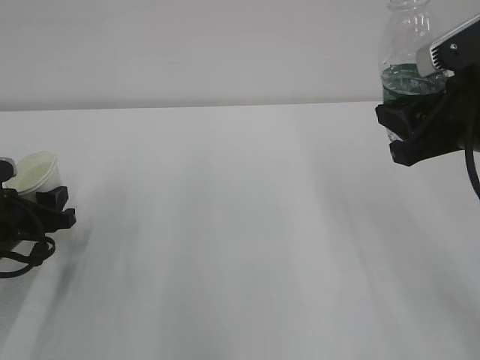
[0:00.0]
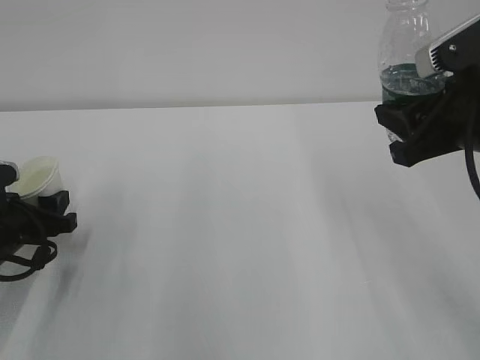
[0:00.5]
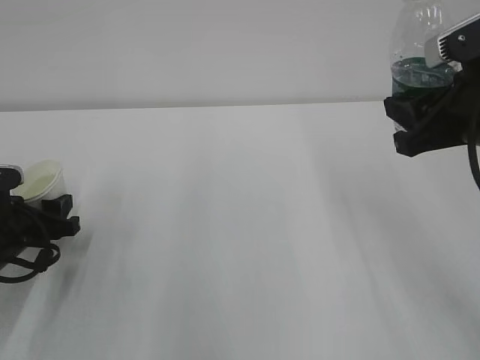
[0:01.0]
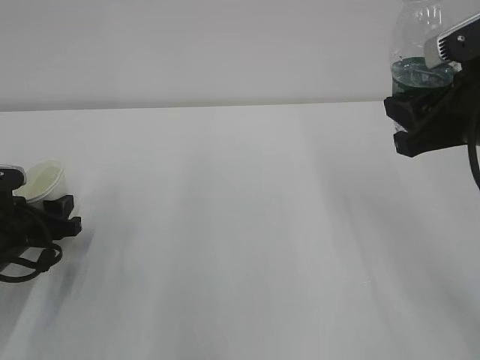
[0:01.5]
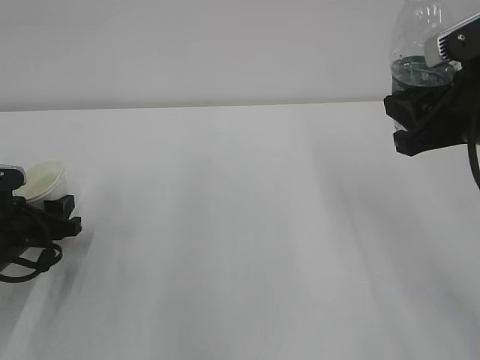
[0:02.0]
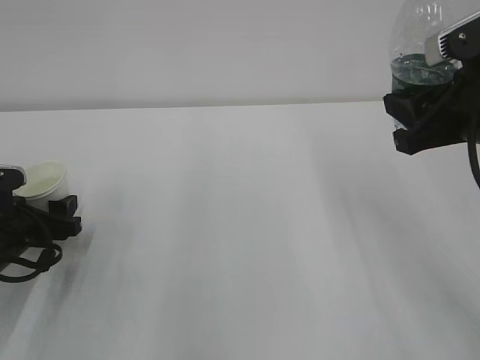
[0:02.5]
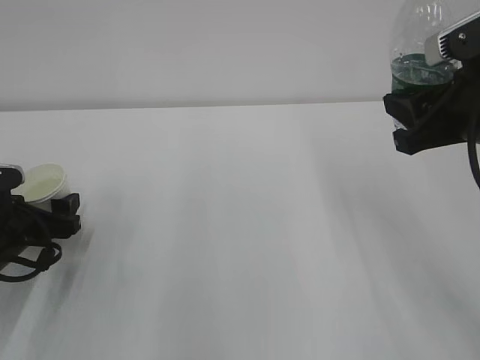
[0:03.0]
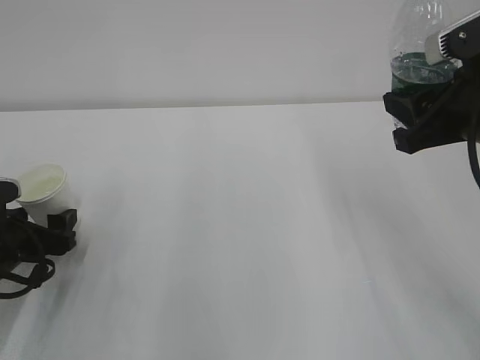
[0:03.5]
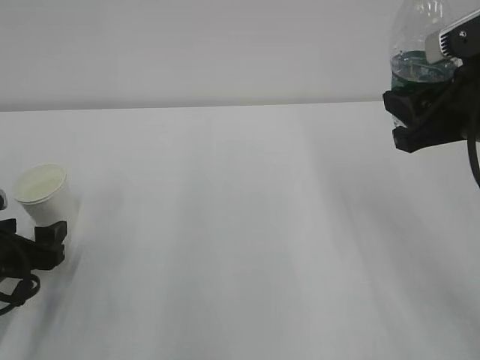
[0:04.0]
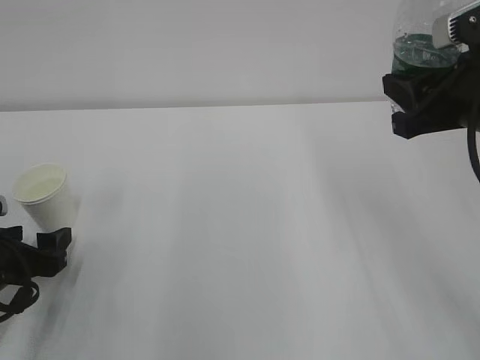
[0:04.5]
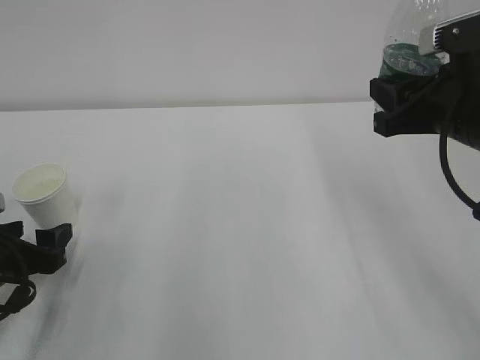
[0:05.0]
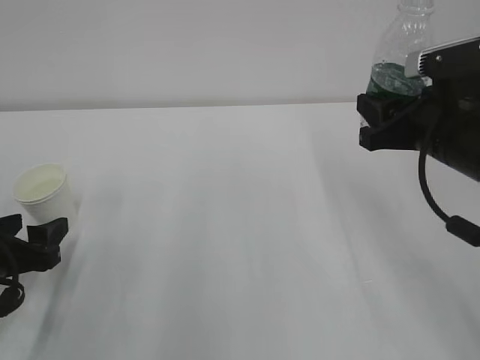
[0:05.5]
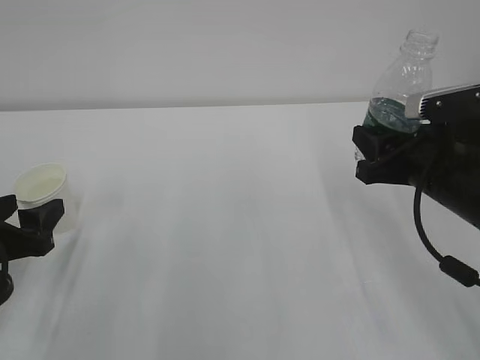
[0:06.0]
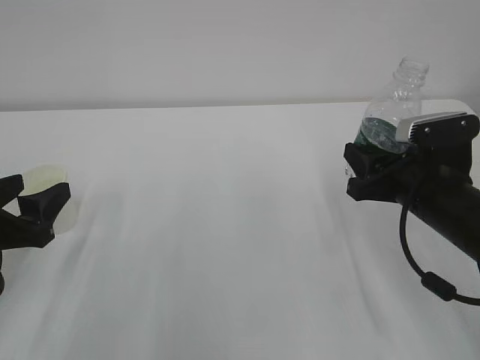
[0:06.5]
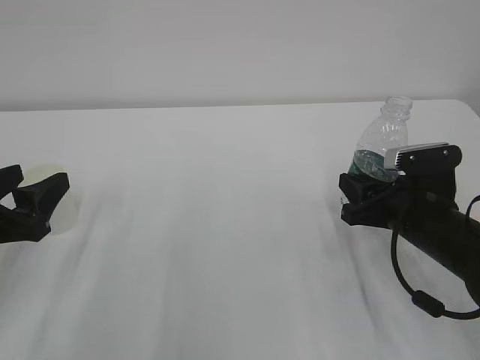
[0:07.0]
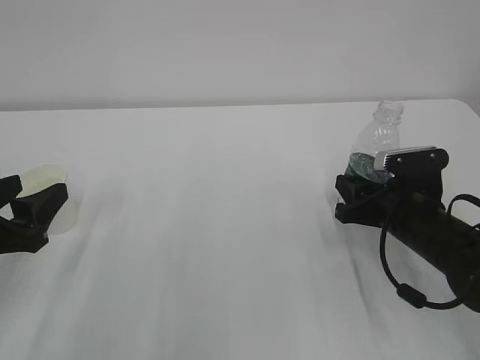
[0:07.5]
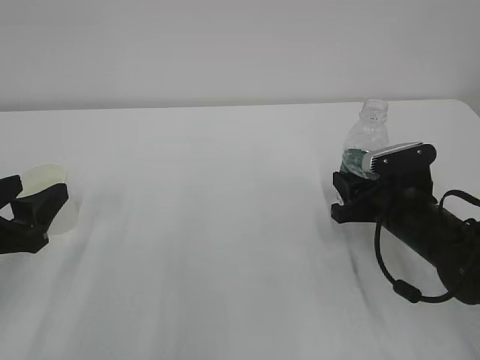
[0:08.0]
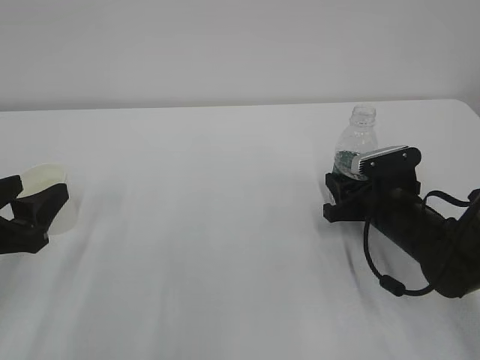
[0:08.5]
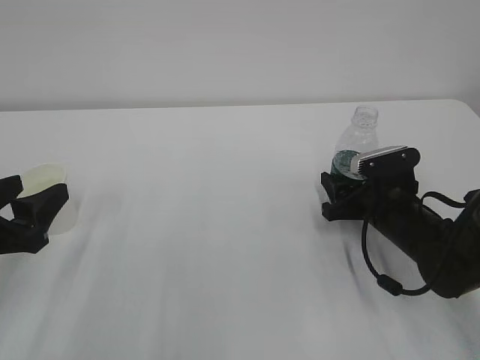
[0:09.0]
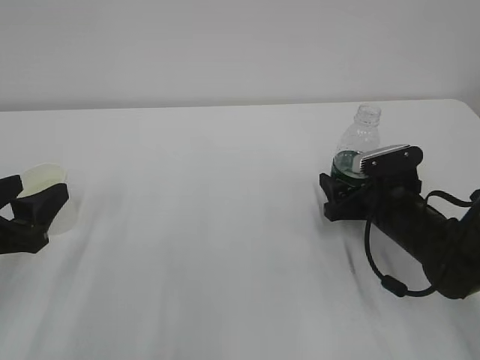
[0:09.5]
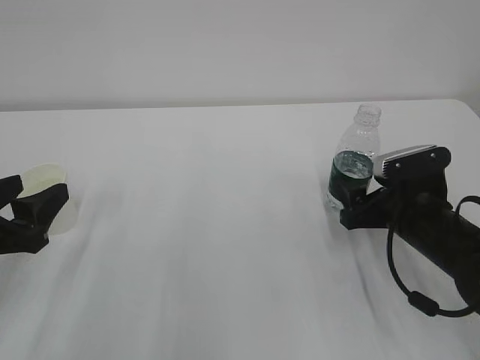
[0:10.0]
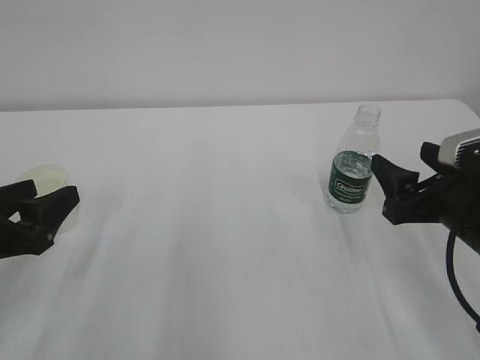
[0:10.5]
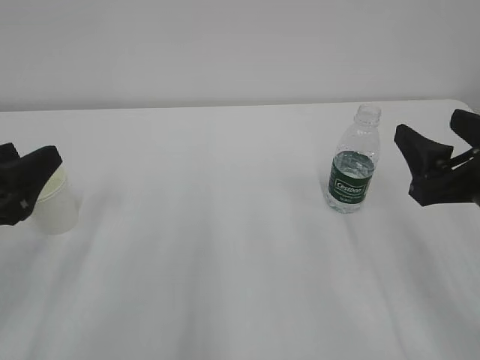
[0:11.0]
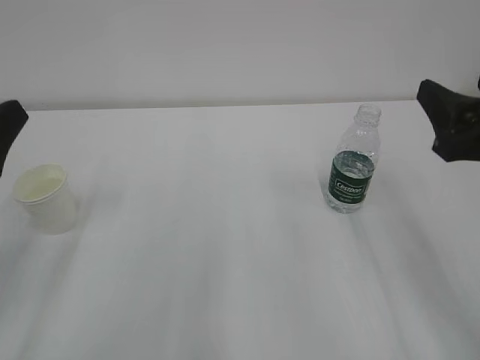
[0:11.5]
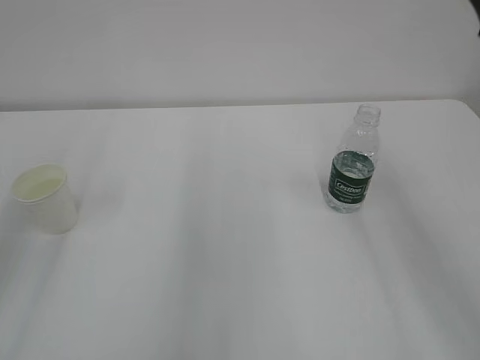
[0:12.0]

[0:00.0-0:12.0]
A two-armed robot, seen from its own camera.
0:00.0 to 0:02.0: There are only small adjustments of the grippers.
0:02.0 to 0:04.0: The left gripper opens its fingers.
0:04.0 to 0:06.0: The right gripper heads downward, covering some 10 cm.
0:06.0 to 0:08.0: The right gripper travels downward by some 10 cm.
0:08.0 to 0:10.0: The right gripper opens.
0:10.0 to 0:12.0: The left gripper is displaced upward by approximately 15 cm. Meanwhile the right gripper shifts about 25 cm upward.

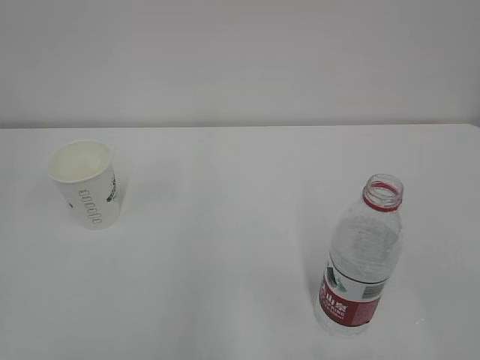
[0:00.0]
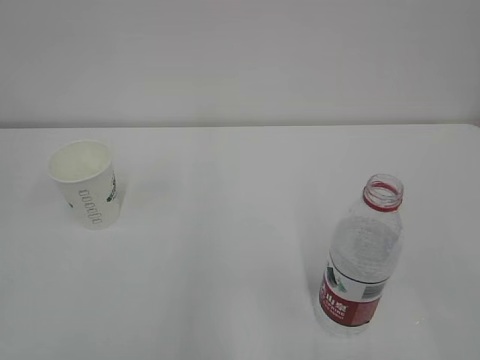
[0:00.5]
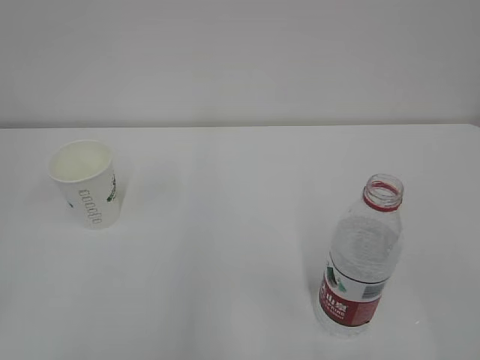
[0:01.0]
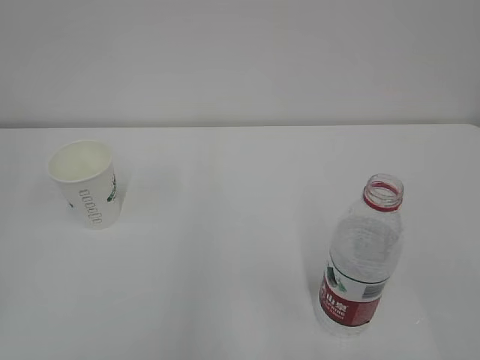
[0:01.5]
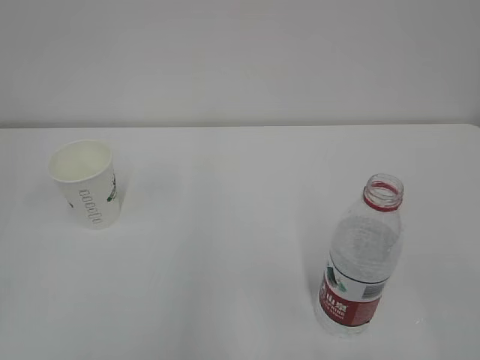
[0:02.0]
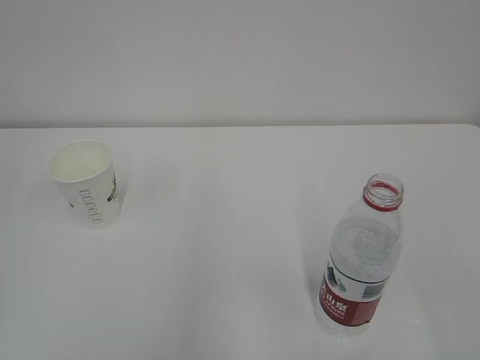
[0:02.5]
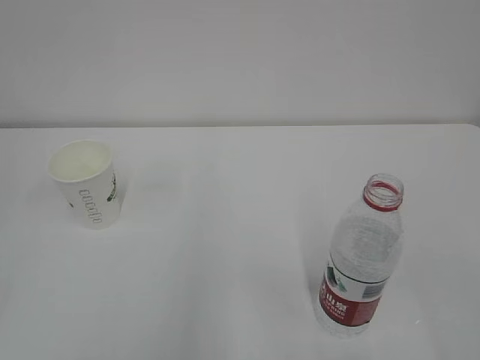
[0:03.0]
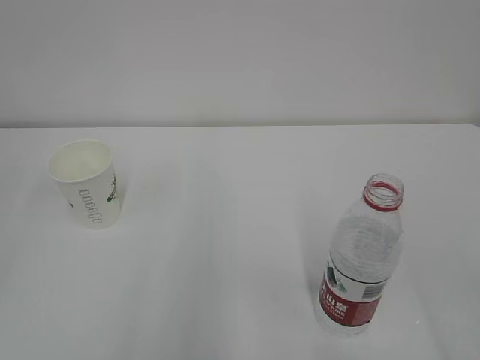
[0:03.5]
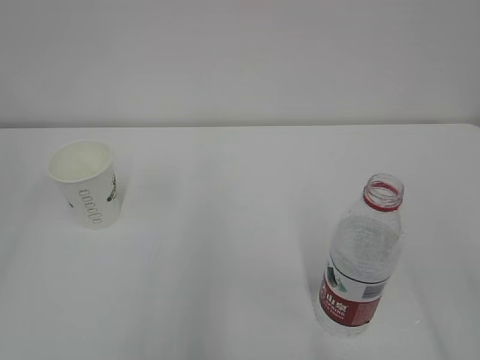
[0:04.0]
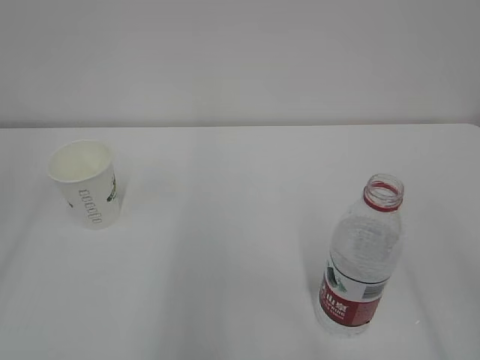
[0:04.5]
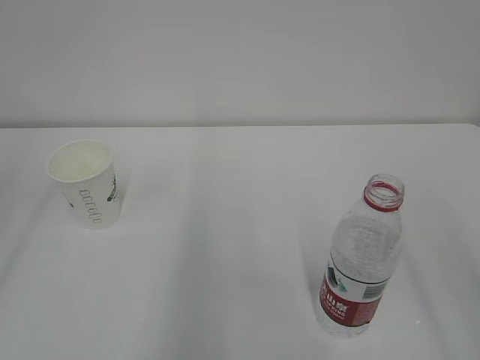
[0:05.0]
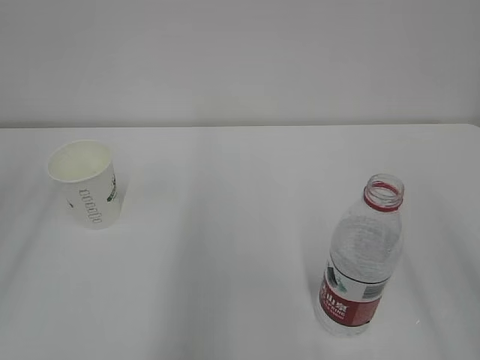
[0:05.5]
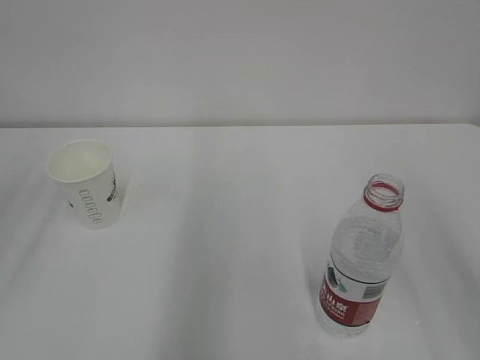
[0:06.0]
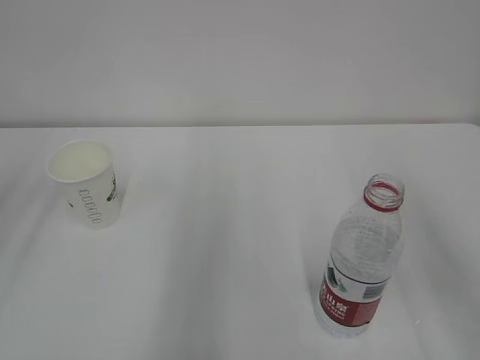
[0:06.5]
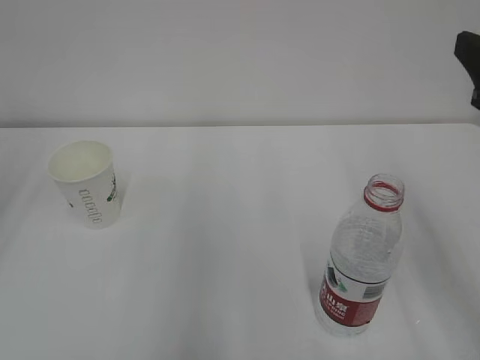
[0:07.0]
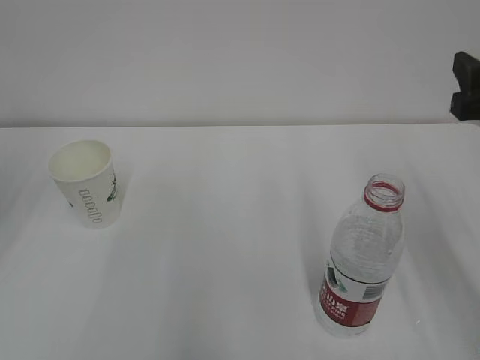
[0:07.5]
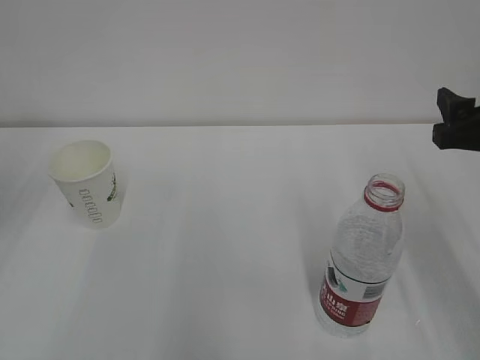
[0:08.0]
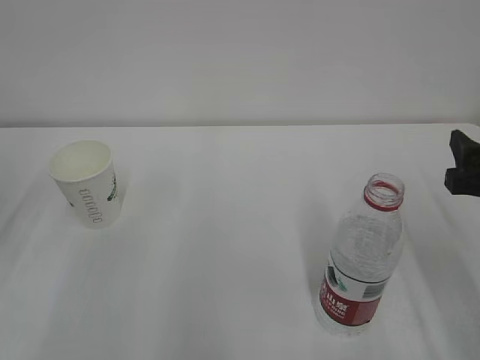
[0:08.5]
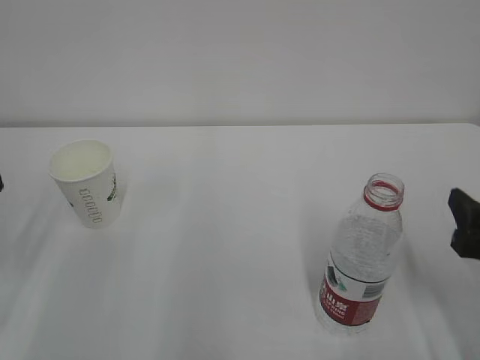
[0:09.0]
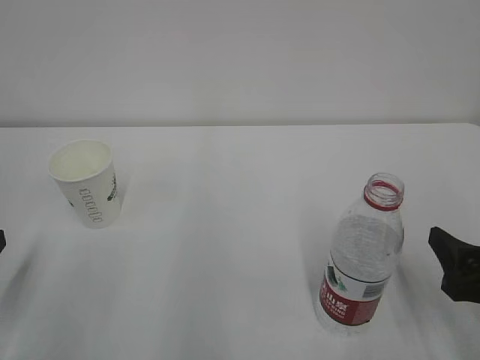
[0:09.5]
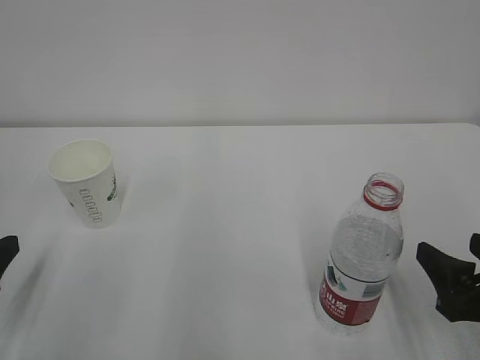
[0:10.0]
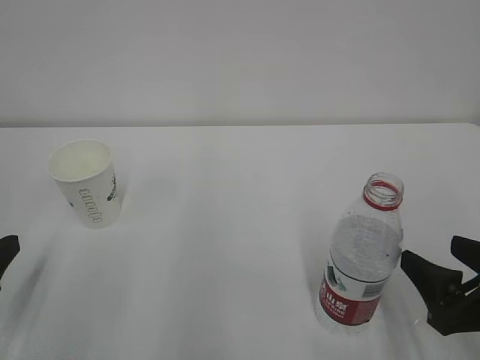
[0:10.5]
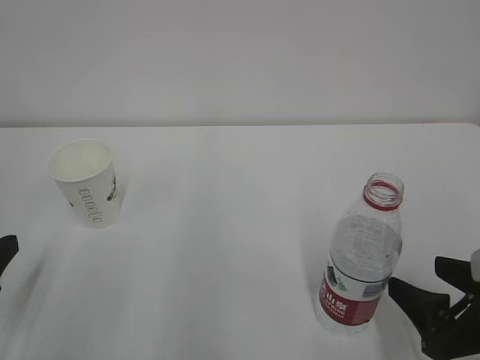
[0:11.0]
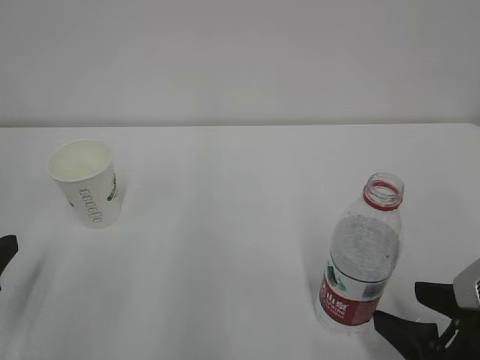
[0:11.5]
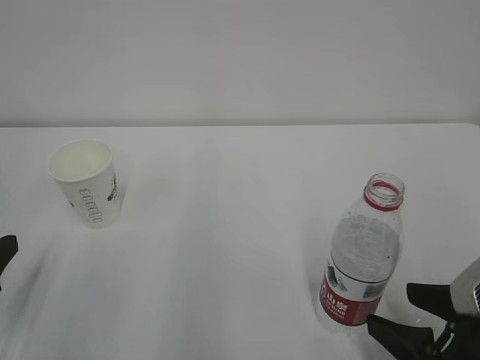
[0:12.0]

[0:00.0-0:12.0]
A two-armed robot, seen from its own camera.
0:06.0 to 0:08.0: The right gripper travels forward and downward by about 20 cm.
0:08.0 to 0:10.0: The left gripper moves downward and backward, some 15 cm; the right gripper is displaced backward and downward by roughly 15 cm.

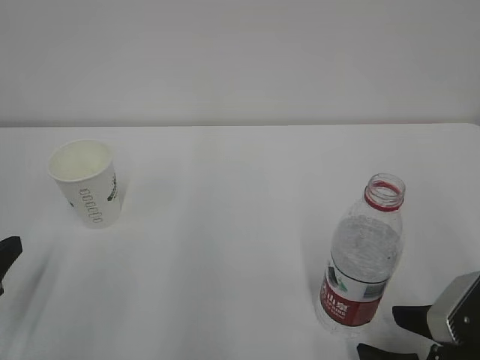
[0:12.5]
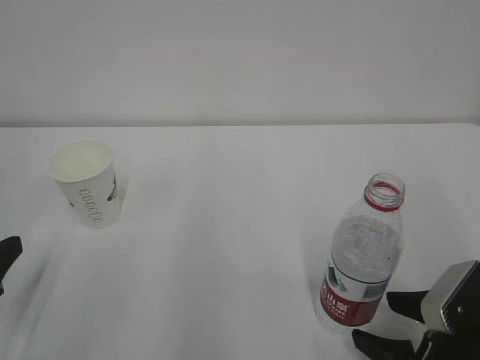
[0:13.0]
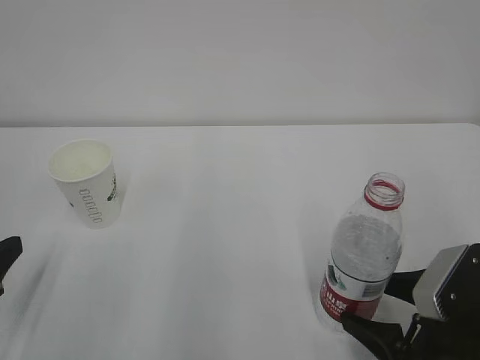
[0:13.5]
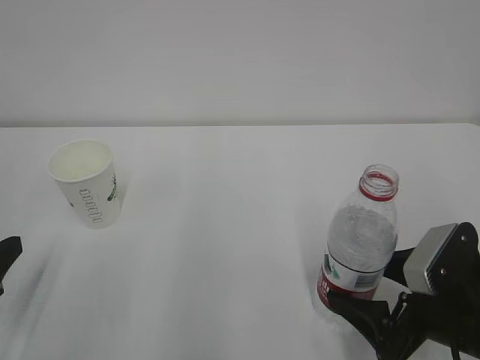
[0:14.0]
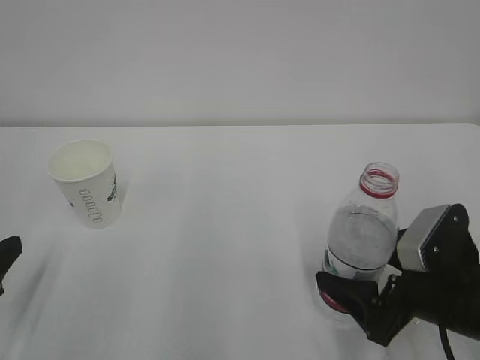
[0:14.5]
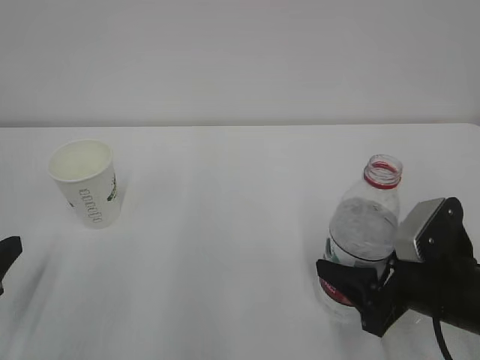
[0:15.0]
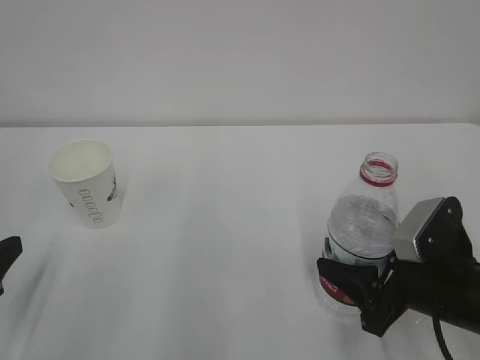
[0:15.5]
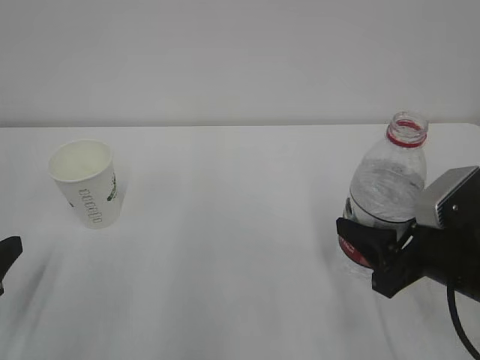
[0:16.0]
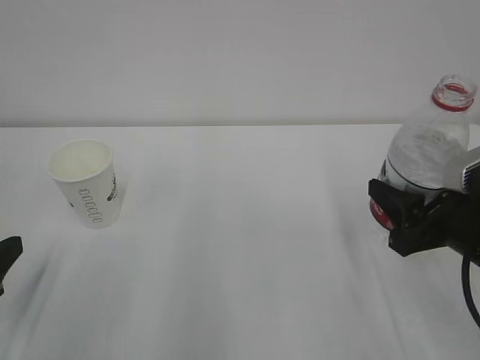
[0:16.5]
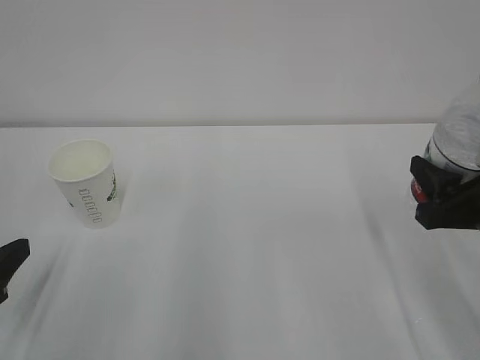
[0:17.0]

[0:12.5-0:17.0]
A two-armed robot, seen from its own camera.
0:12.5 to 0:14.5: The right gripper goes about 5 cm forward.
0:14.5 to 0:17.0: The right gripper heads upward, covering approximately 5 cm, and closes up.
